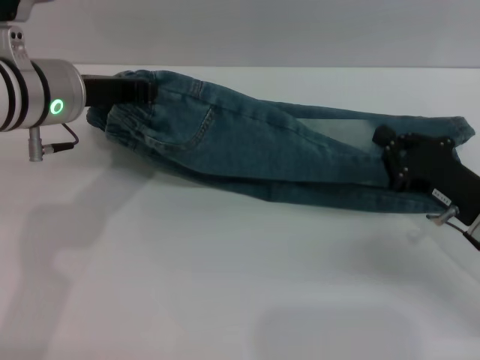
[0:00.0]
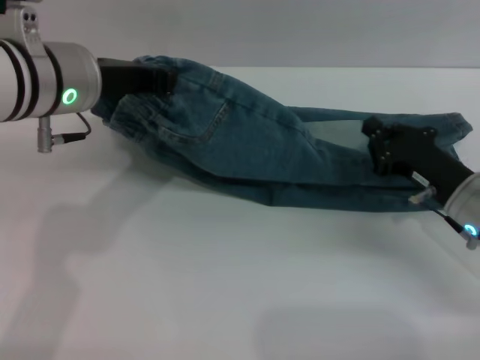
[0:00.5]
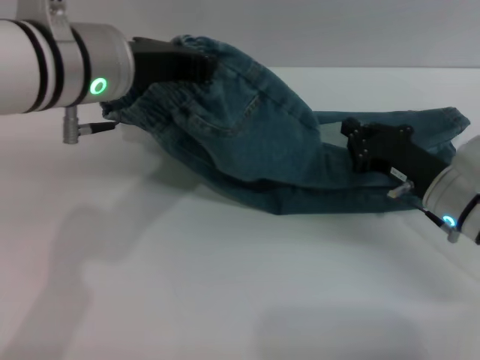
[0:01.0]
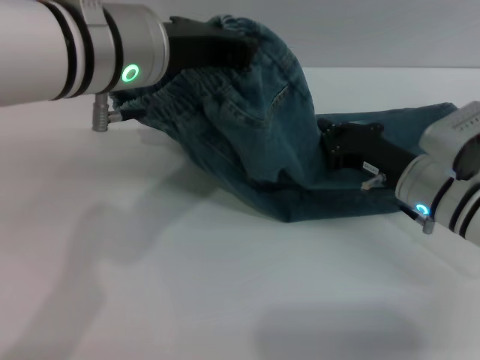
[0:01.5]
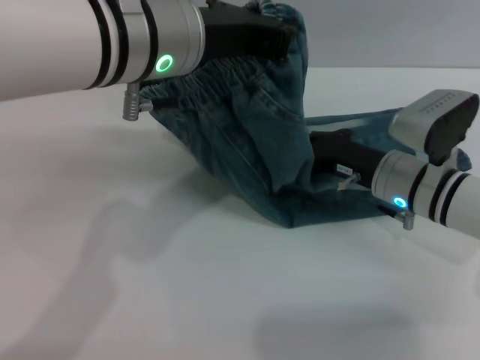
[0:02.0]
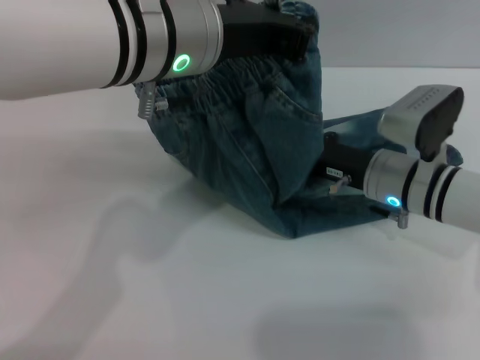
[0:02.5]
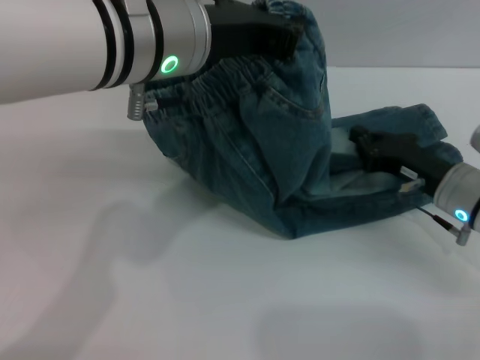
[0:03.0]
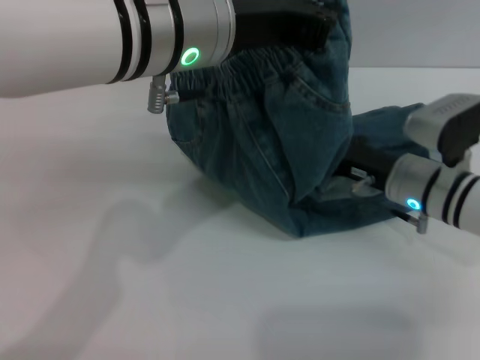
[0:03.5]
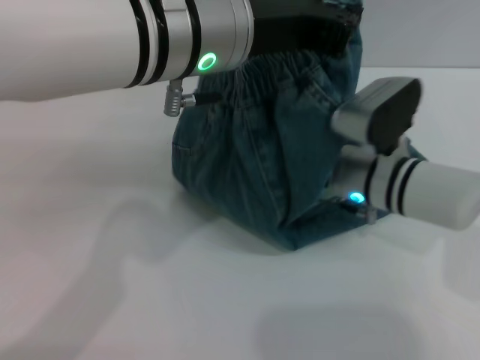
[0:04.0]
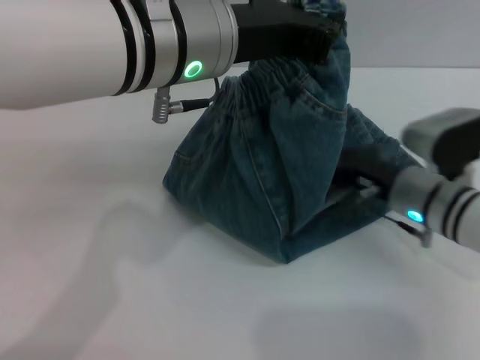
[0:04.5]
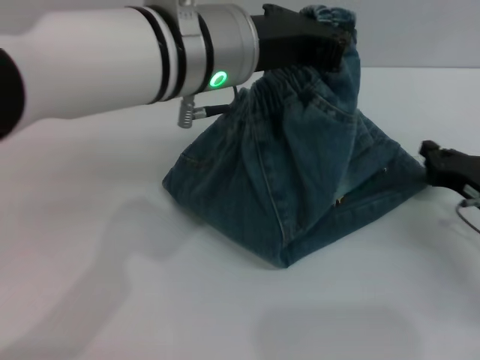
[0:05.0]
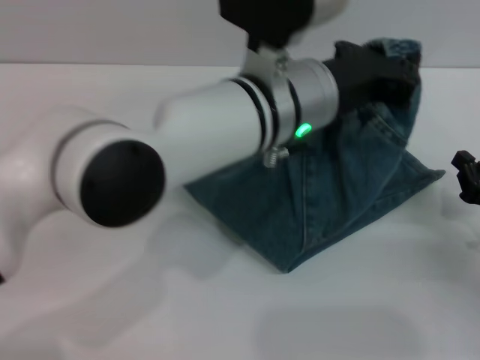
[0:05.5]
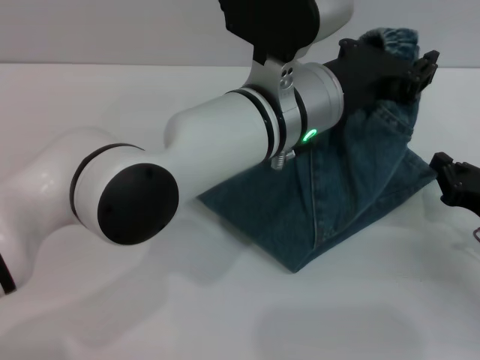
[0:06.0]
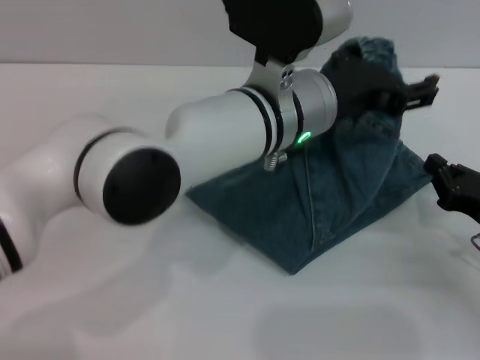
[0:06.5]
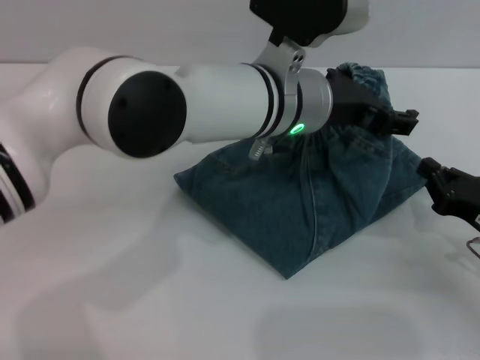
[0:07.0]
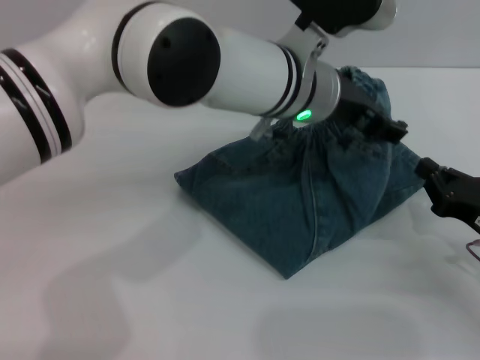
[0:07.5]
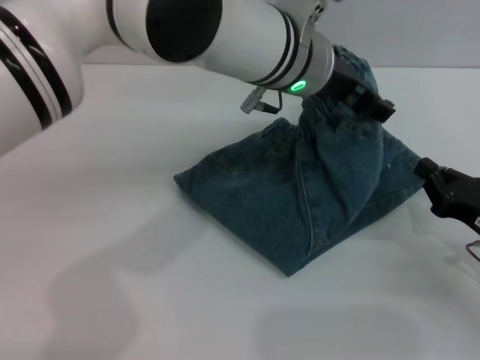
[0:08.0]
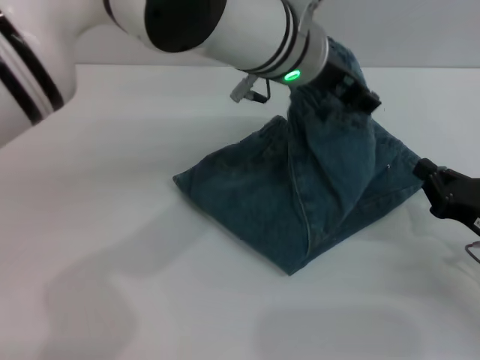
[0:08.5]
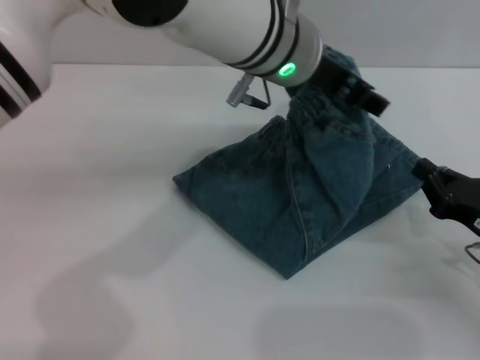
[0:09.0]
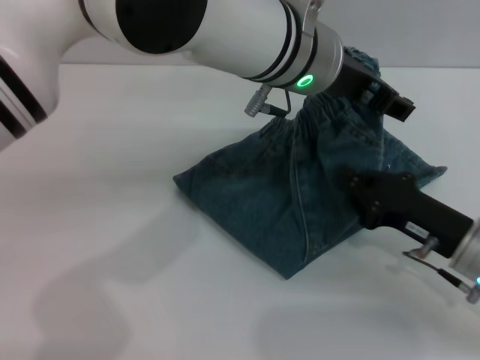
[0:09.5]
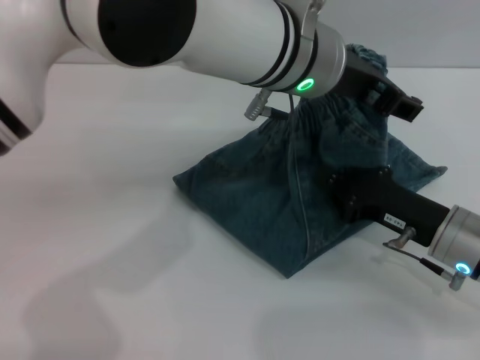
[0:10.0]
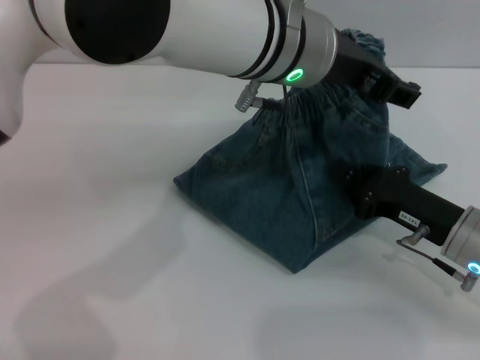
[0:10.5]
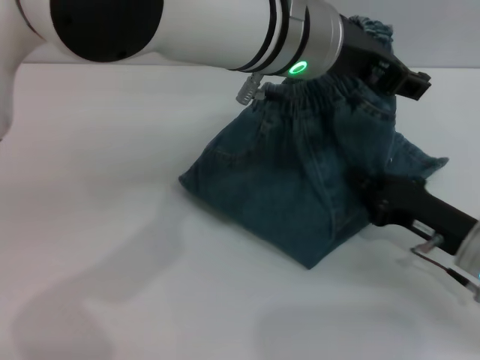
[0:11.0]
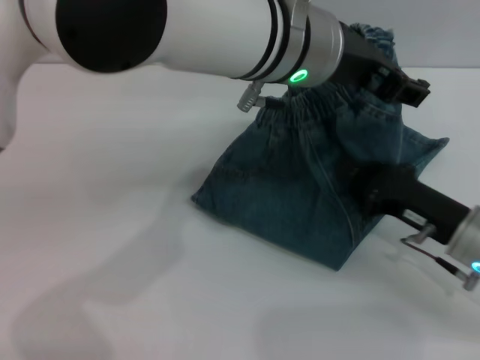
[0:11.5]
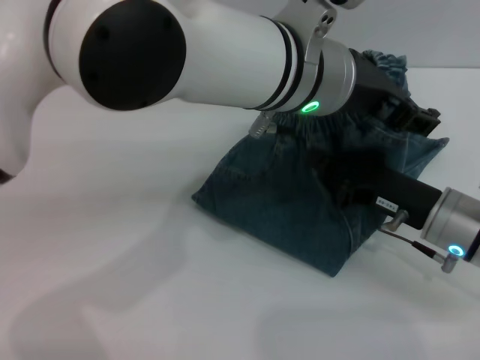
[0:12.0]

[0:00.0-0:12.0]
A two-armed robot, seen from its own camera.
0:00.0 to 0:02.0: The right gripper is displaced to the left and forward by about 10 cm. Meanwhile the left gripper shifts some 15 cm to the right and upward.
0:02.0 to 0:04.0: The right gripper shifts about 5 cm to the left.
0:04.0 to 0:06.0: The left gripper travels downward and to the right by about 10 cm. The right gripper moves to the right and backward, approximately 20 cm.
0:06.0 to 0:08.0: The left gripper heads forward, covering approximately 5 cm, and opens.
0:08.0 to 0:10.0: The right gripper is displaced to the left by approximately 5 cm.

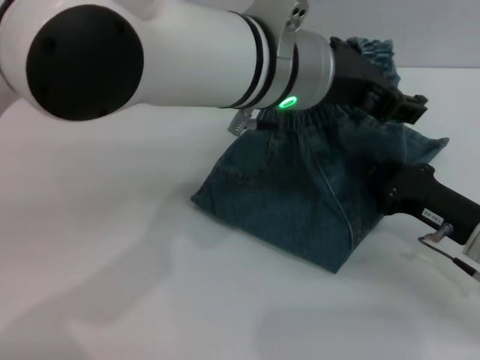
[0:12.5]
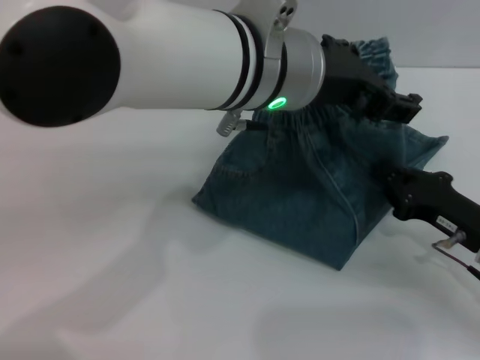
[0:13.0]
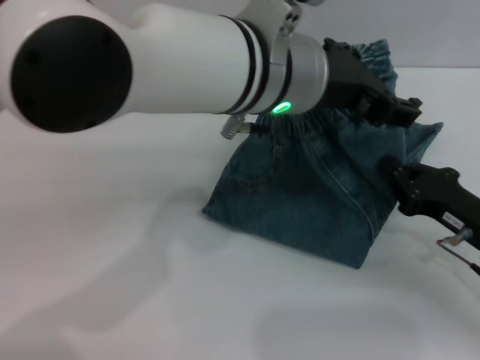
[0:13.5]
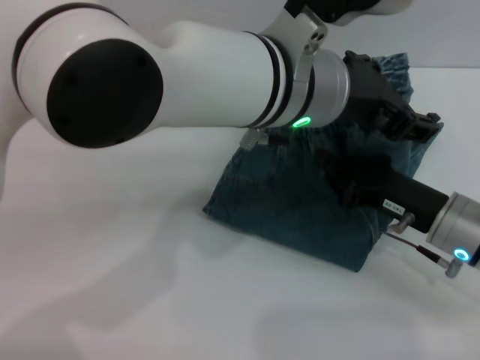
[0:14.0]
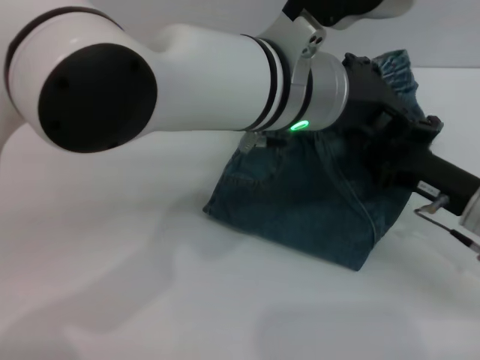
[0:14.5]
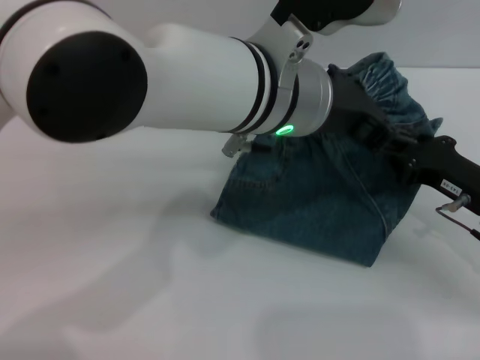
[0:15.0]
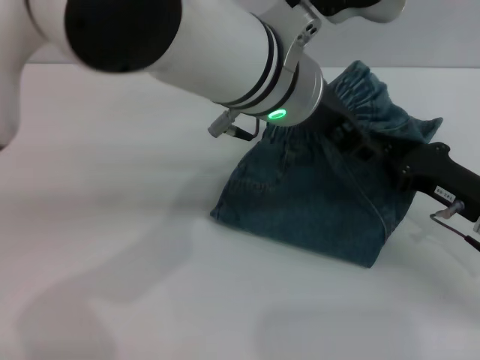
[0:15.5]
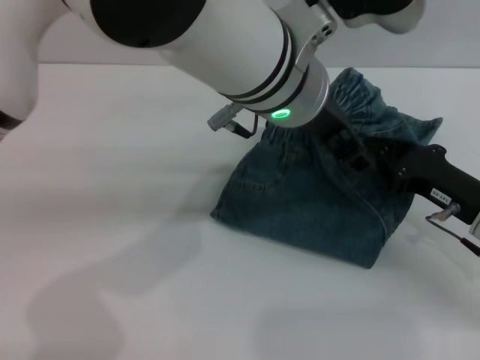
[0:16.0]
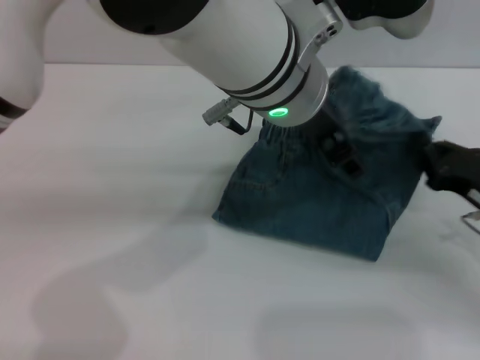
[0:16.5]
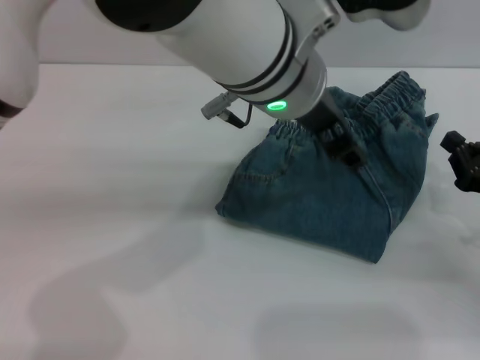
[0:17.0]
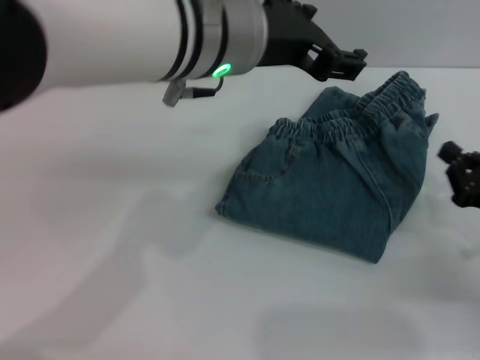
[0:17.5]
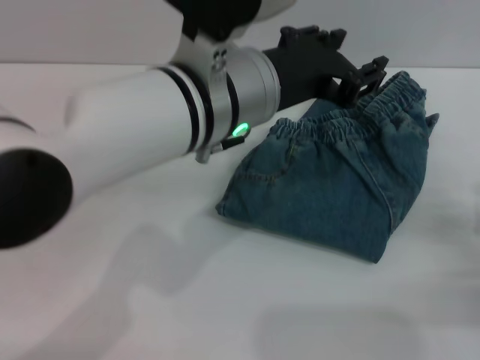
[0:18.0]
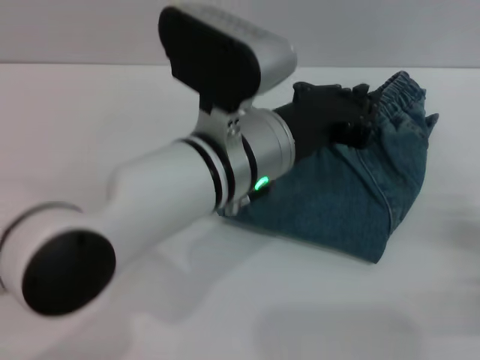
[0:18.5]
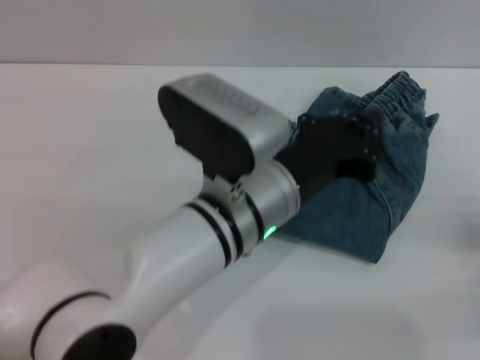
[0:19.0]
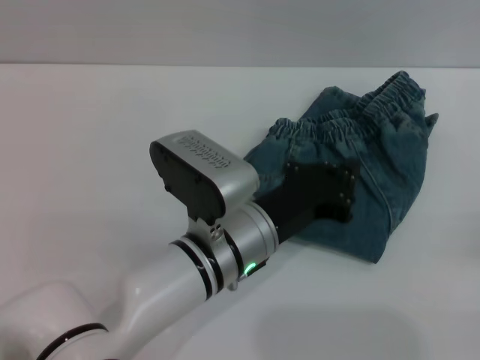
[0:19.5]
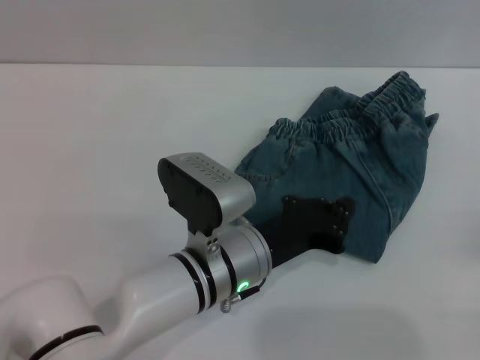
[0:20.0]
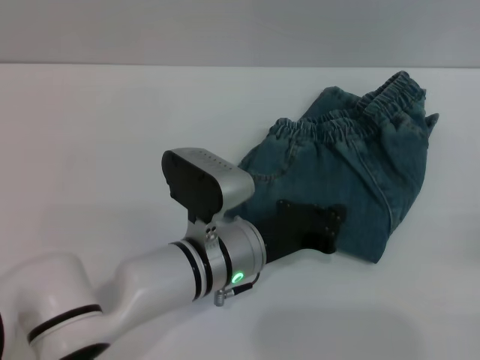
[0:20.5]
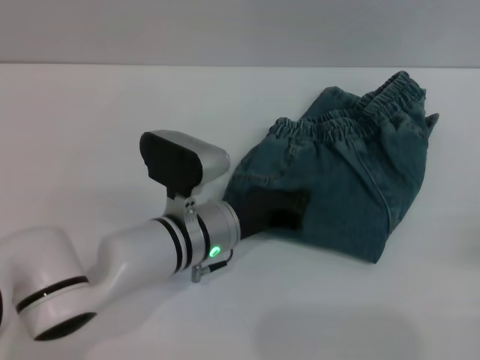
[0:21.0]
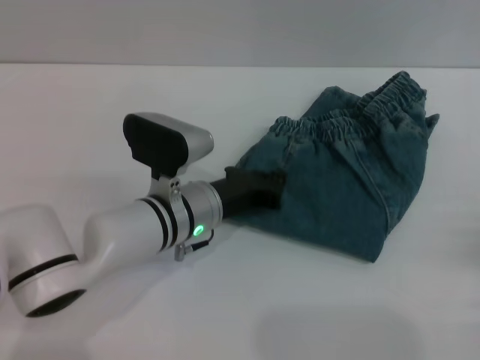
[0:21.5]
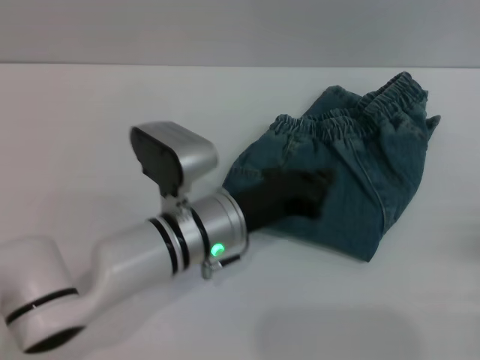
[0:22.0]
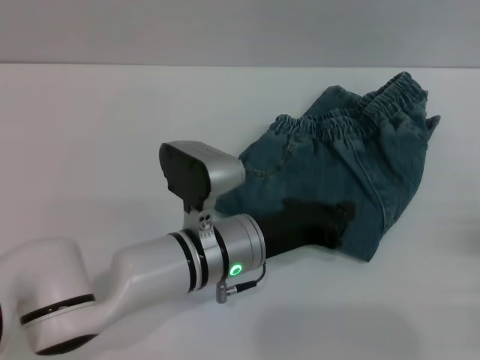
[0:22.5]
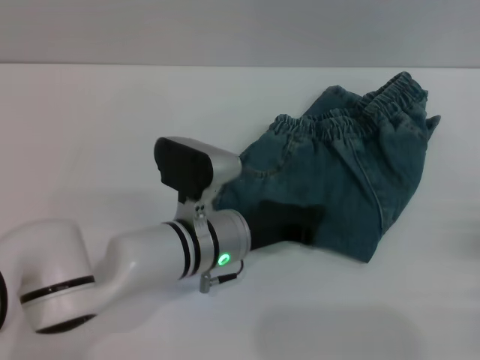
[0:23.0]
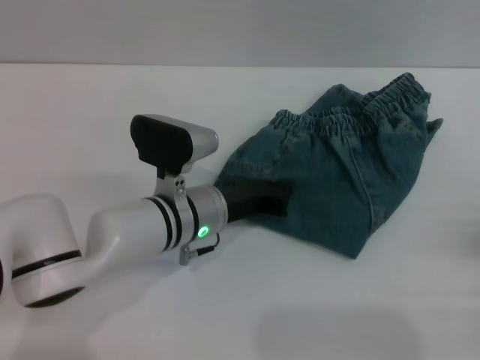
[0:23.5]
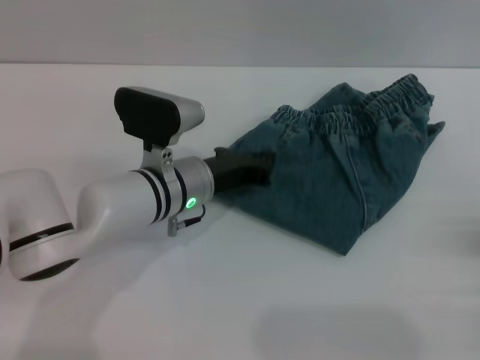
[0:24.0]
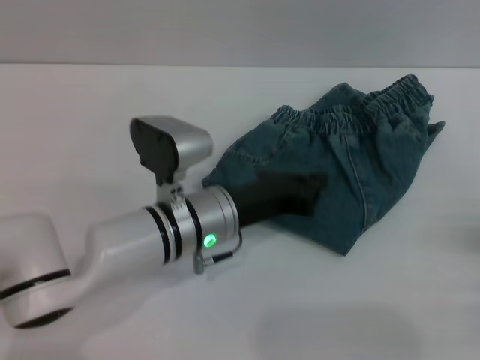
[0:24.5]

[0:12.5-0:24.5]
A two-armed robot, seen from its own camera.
Step, 0:12.5 to 0:17.0: Fold the pants from left to right with the left gripper.
0:16.5 to 0:18.5: The right gripper travels backward and to the right by some 10 cm; the left gripper moves downward, some 10 cm, and closes.
0:18.5 to 0:20.5: The left gripper is displaced downward by some 15 cm.

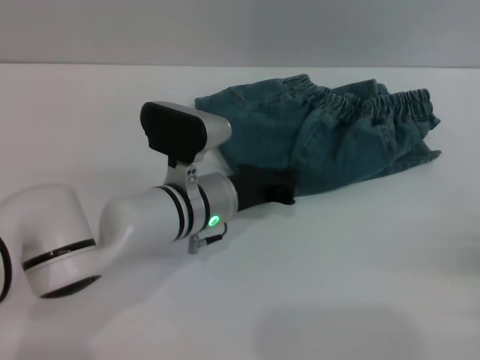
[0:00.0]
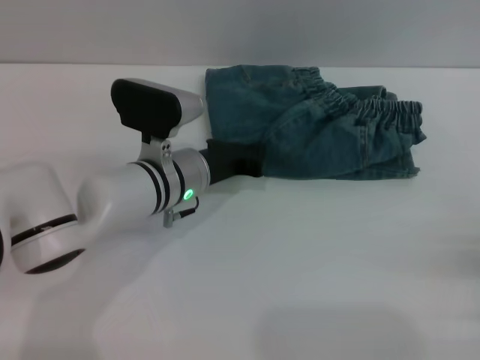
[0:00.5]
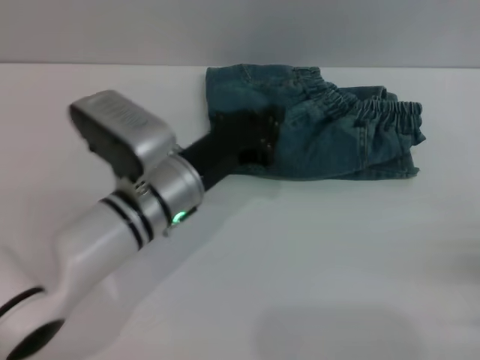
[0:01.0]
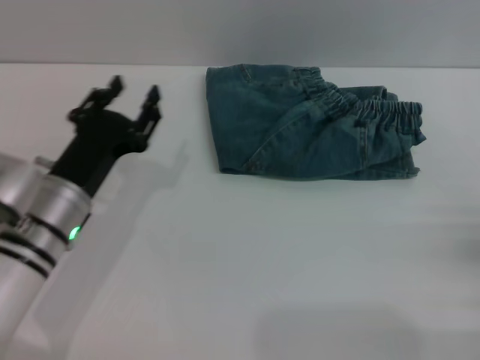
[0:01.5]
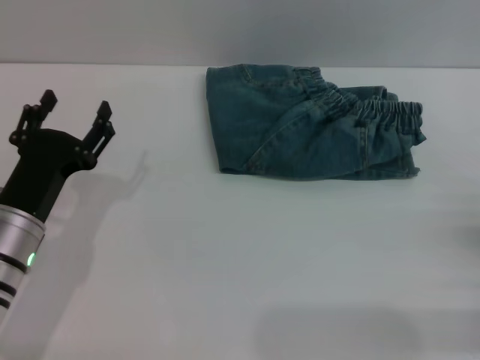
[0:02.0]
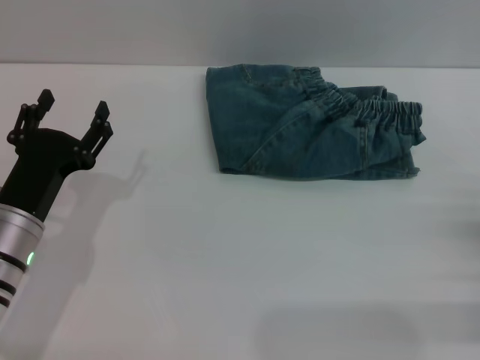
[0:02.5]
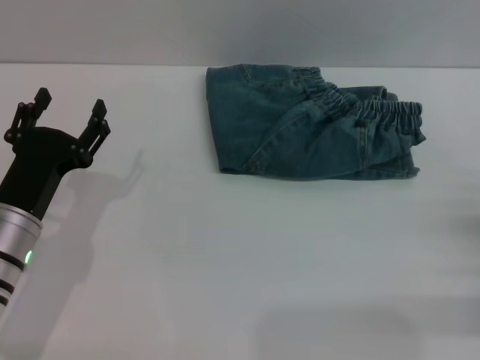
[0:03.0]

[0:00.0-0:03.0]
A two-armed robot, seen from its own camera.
0:00.0 to 0:01.5: The left gripper moves to the left and backward, some 15 cm.
0:01.5 to 0:03.0: The left gripper opens up.
